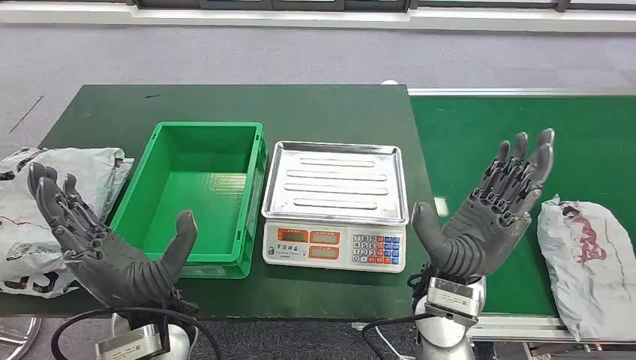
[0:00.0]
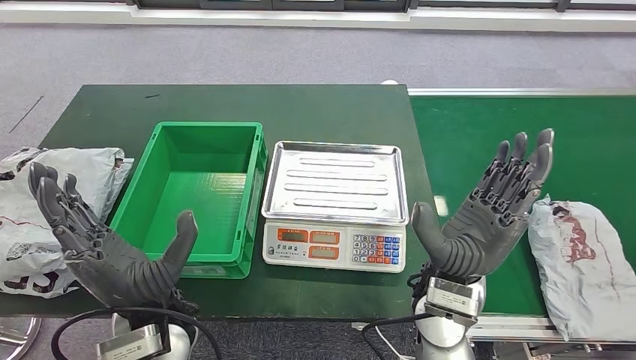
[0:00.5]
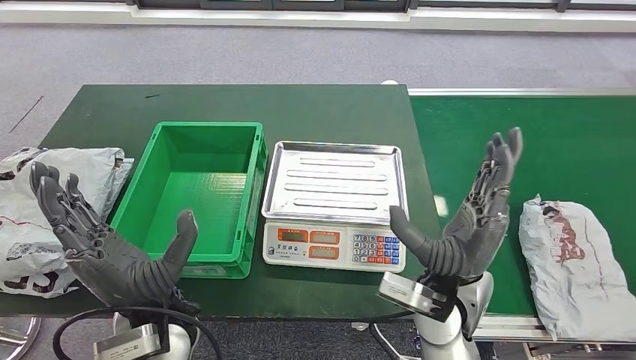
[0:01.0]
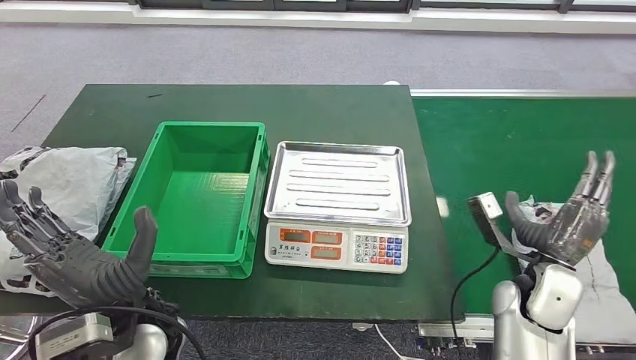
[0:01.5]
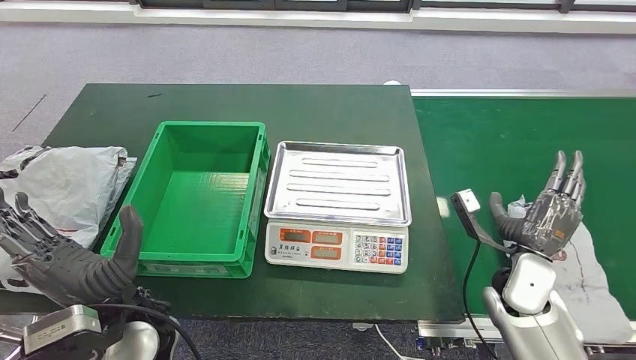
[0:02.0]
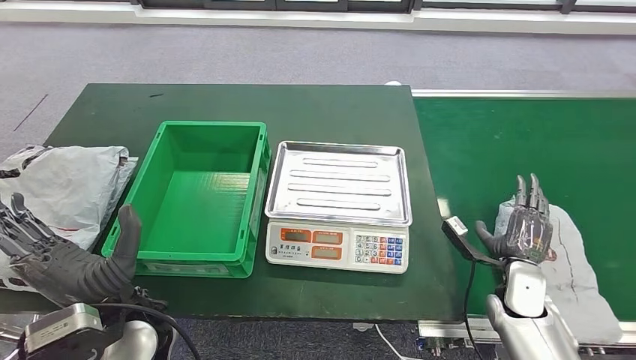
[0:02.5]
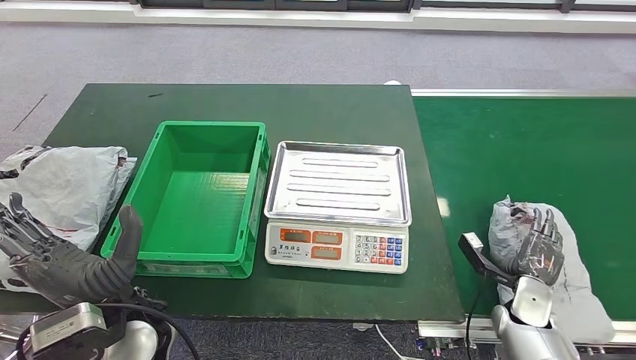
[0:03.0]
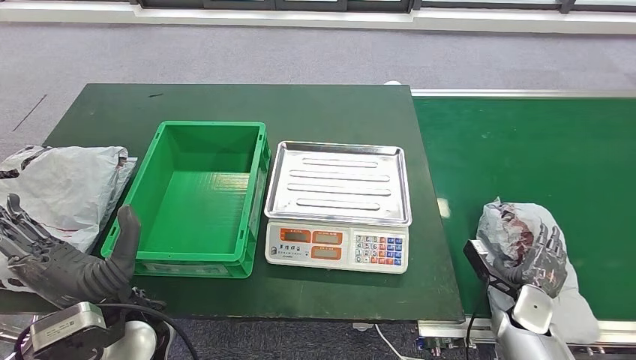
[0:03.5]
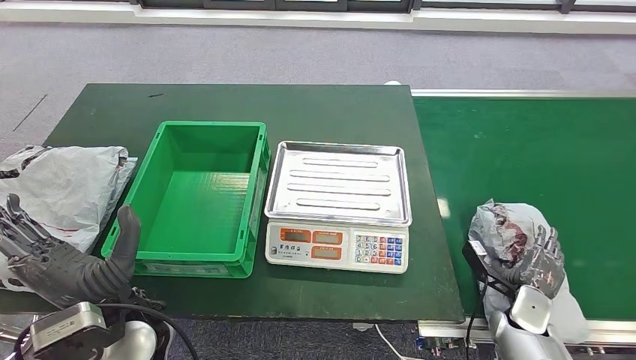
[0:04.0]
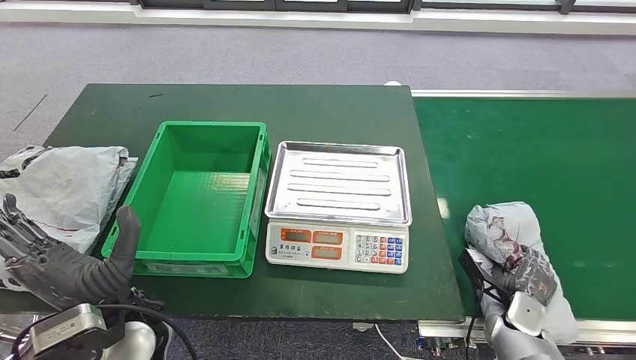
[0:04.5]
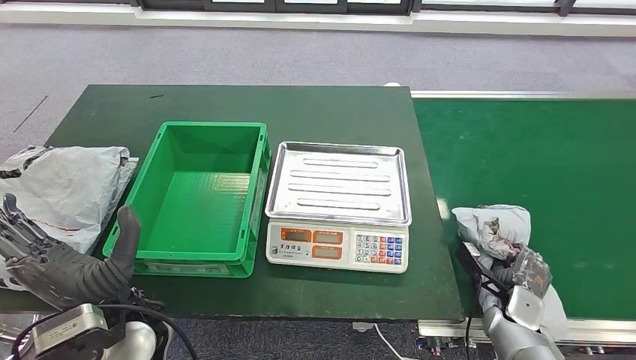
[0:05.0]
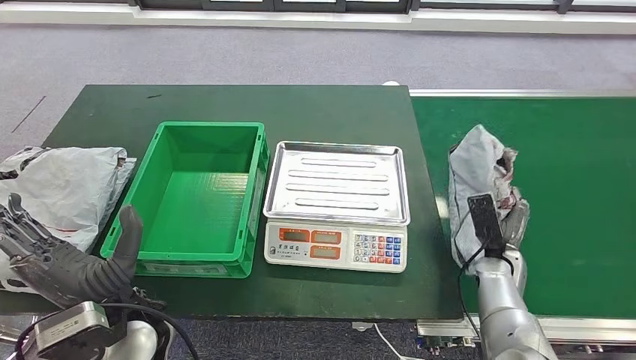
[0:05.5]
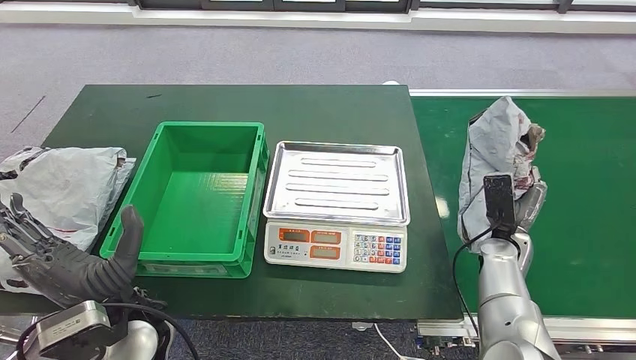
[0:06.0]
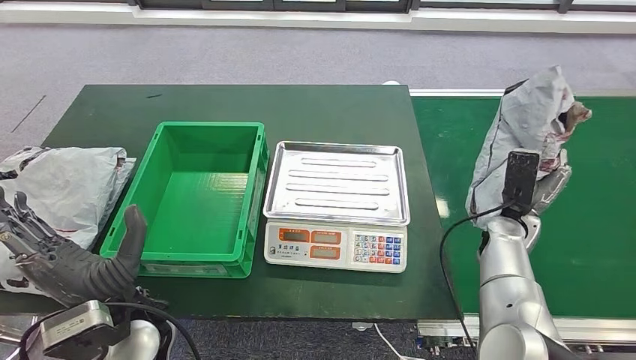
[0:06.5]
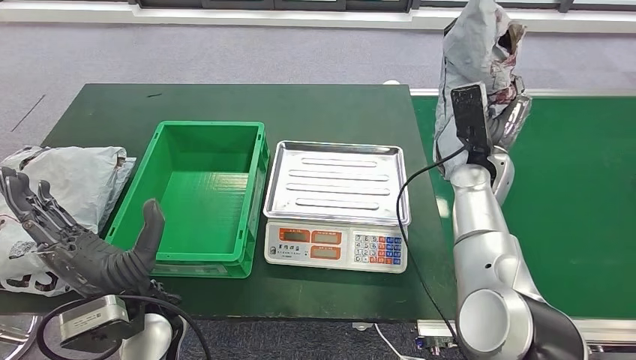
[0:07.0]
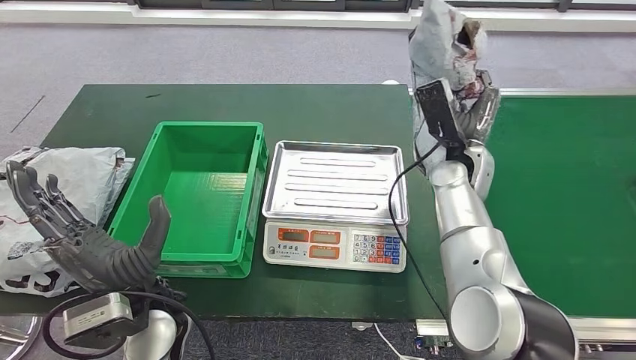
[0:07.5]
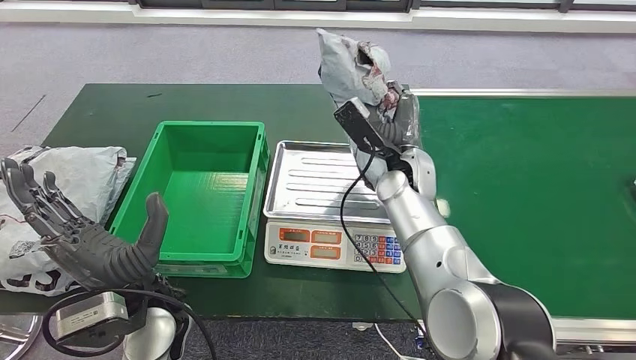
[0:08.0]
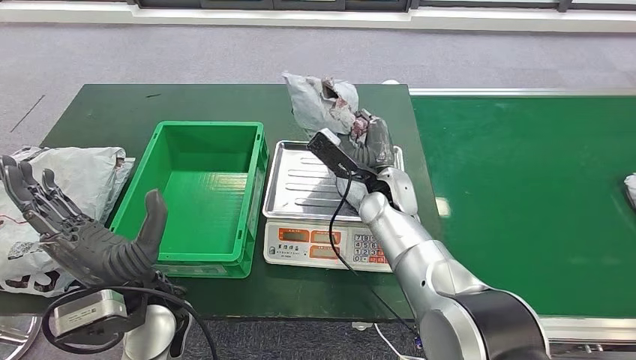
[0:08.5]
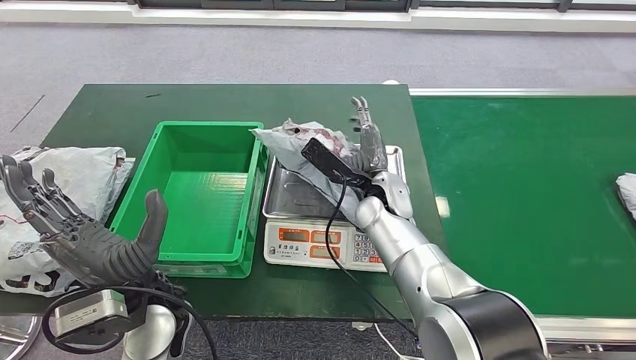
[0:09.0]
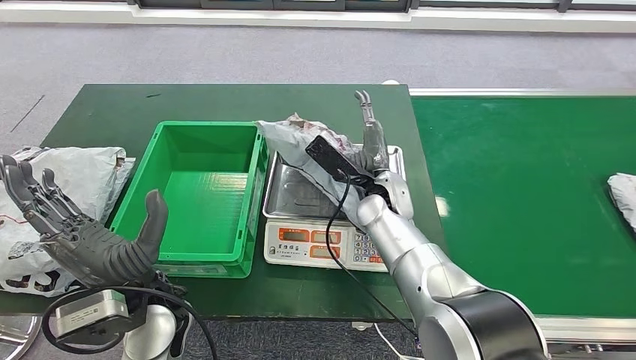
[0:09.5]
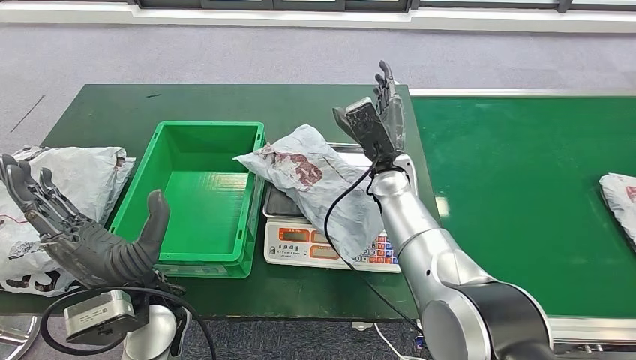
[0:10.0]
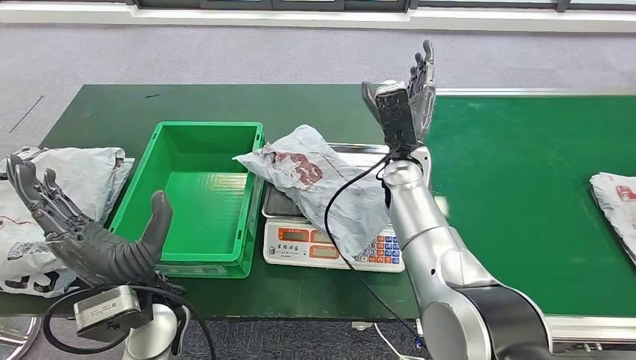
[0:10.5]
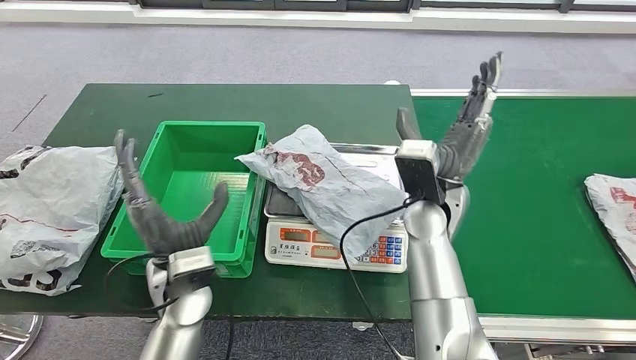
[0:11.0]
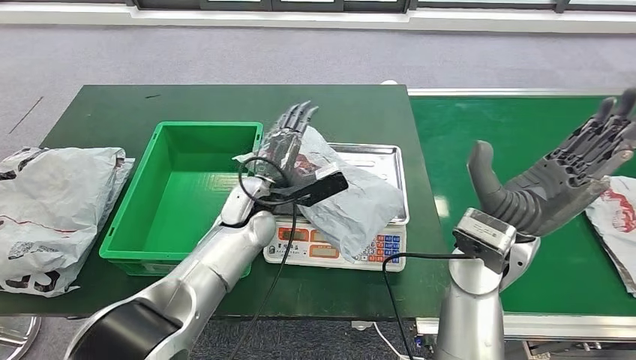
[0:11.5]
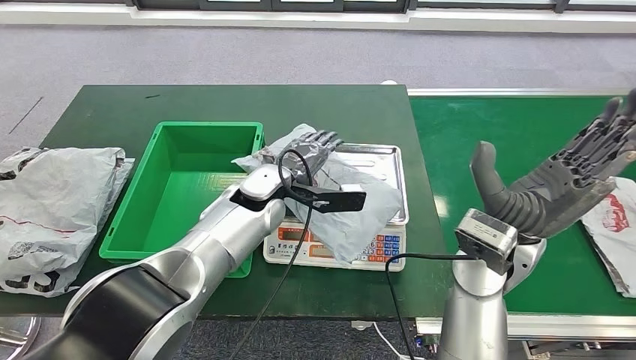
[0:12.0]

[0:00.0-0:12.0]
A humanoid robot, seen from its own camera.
Step, 0:00.0 to 0:07.0: Take the parcel off the conveyor belt.
Step, 0:07.5 to 0:10.5: Place the parcel onto the inbound machine.
0:02.0 to 0:04.0: The right hand heads downward and to the right, covering some 15 cm.
0:04.0 to 0:06.0: The right hand moves forward and upward, approximately 15 cm.

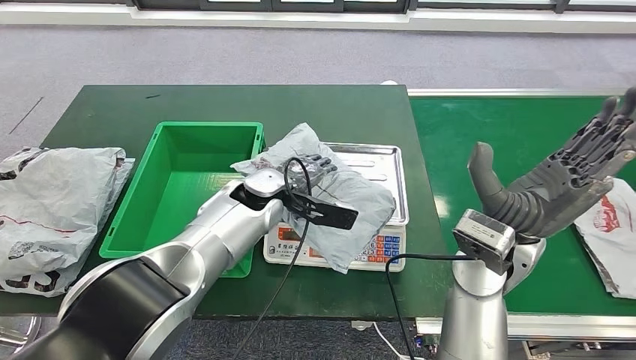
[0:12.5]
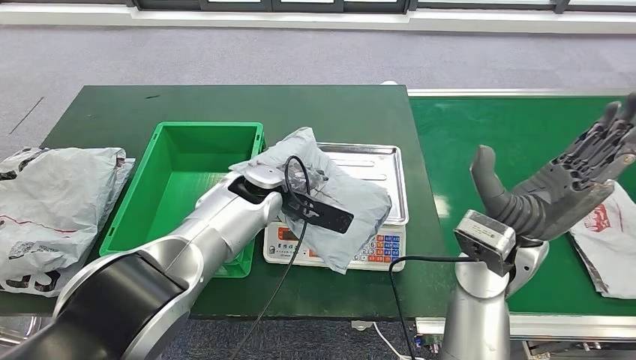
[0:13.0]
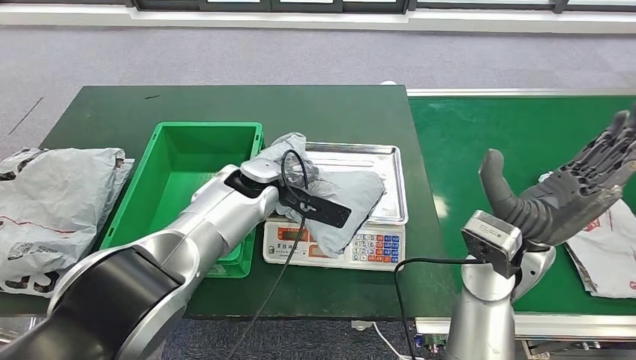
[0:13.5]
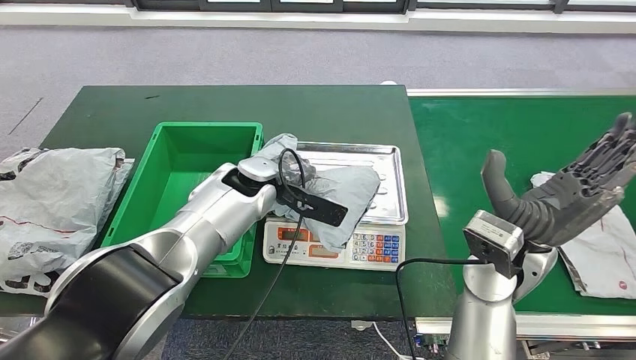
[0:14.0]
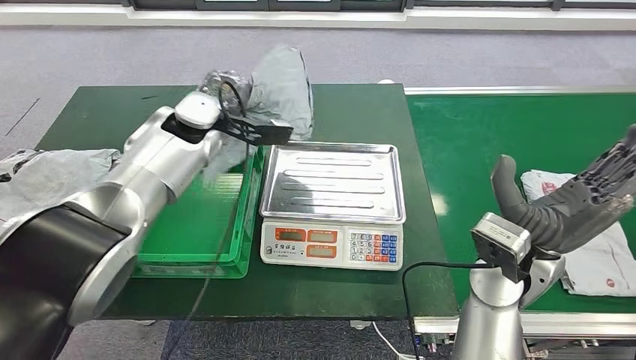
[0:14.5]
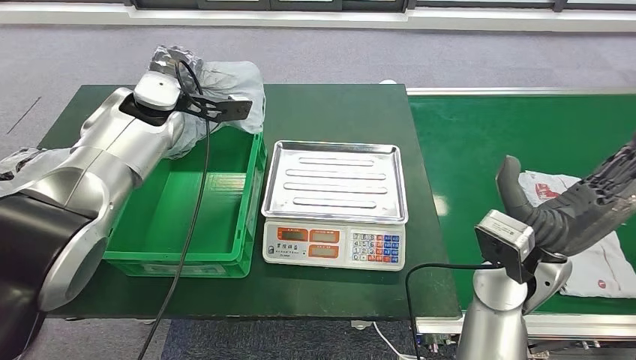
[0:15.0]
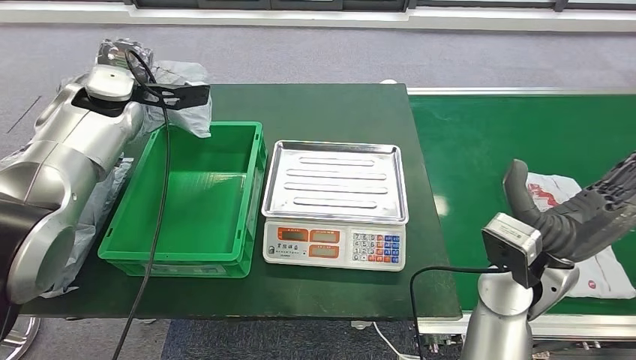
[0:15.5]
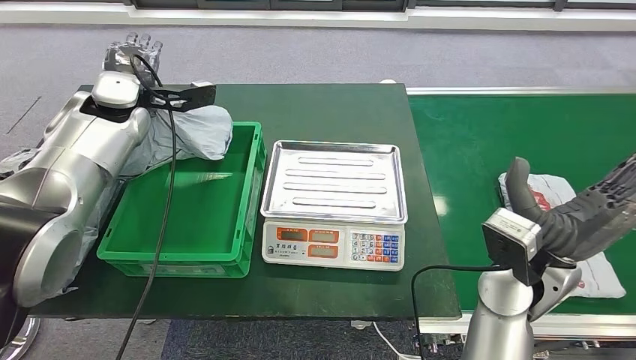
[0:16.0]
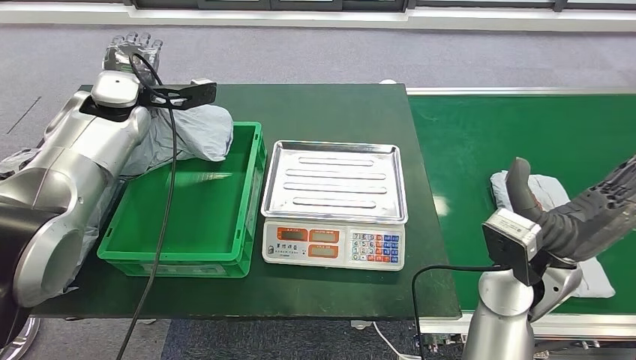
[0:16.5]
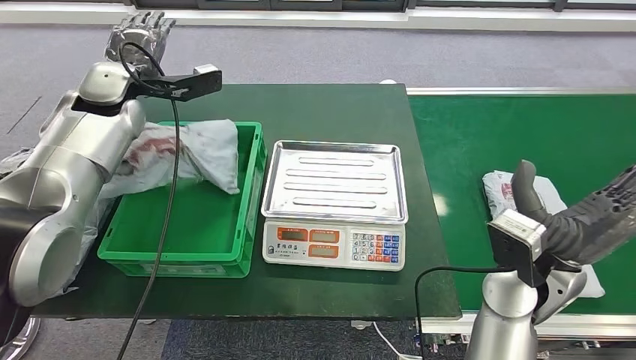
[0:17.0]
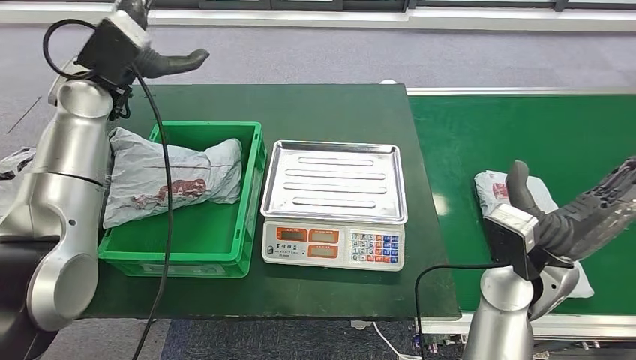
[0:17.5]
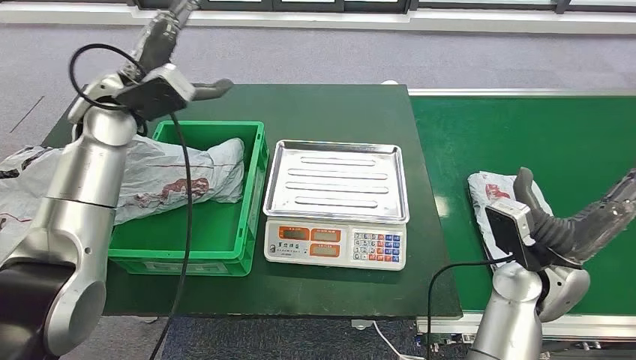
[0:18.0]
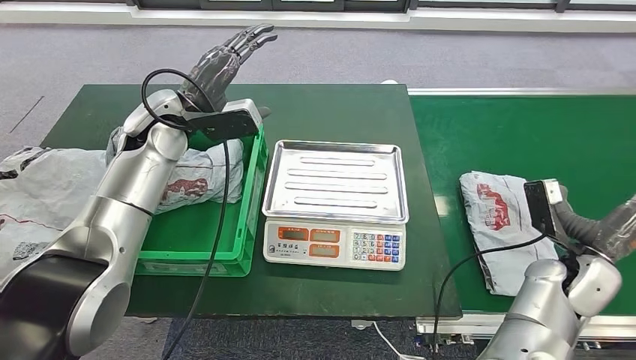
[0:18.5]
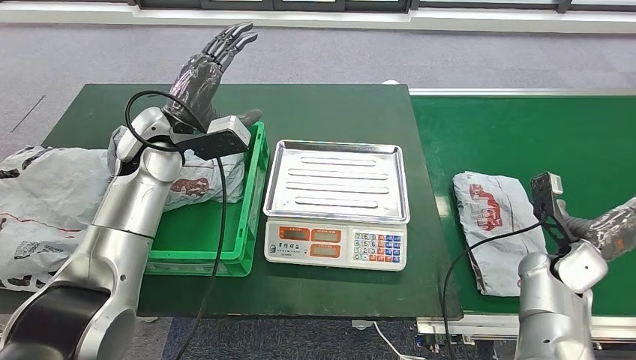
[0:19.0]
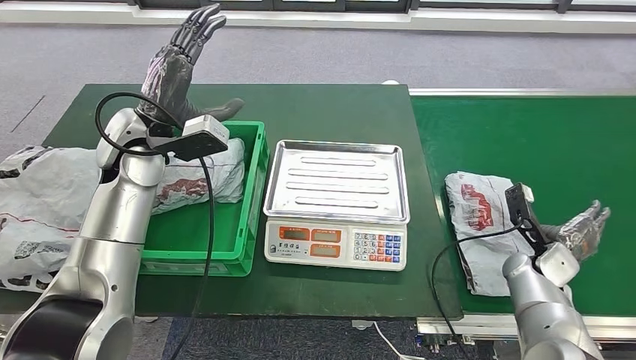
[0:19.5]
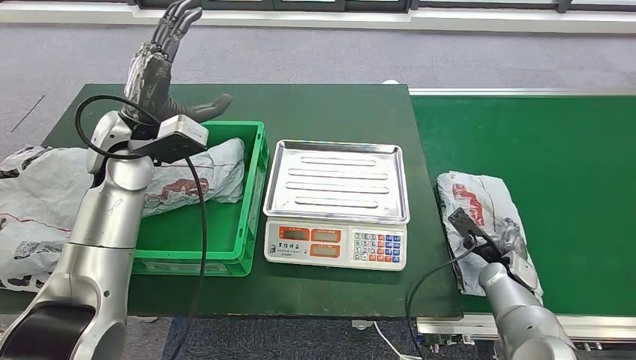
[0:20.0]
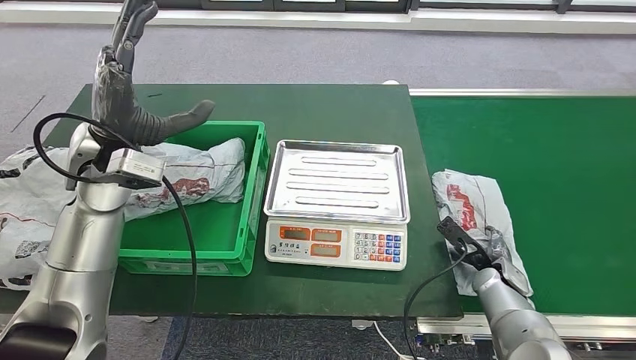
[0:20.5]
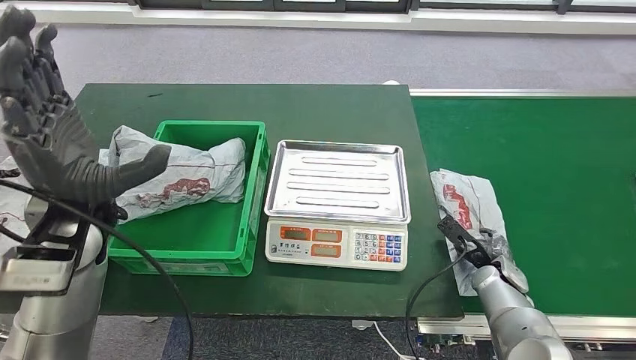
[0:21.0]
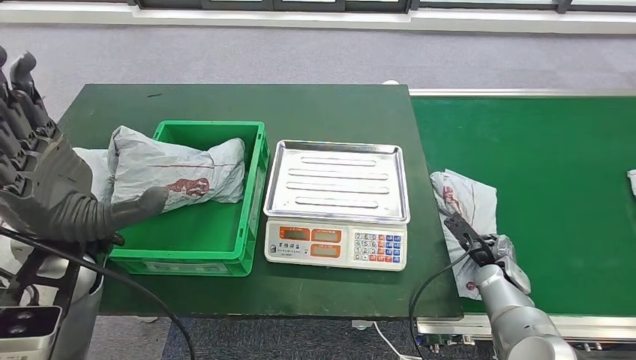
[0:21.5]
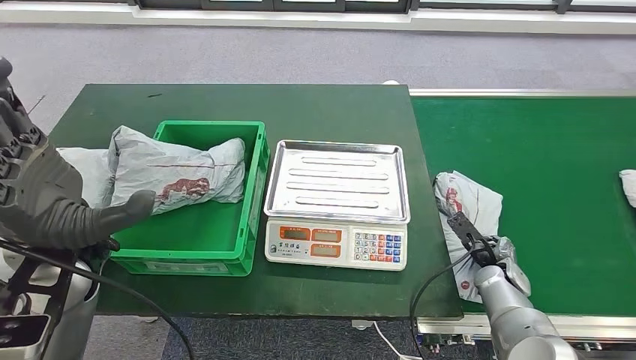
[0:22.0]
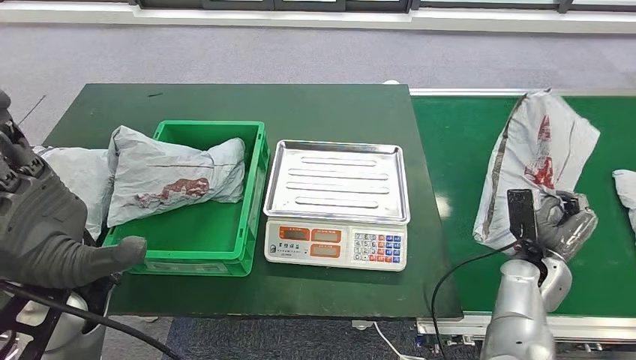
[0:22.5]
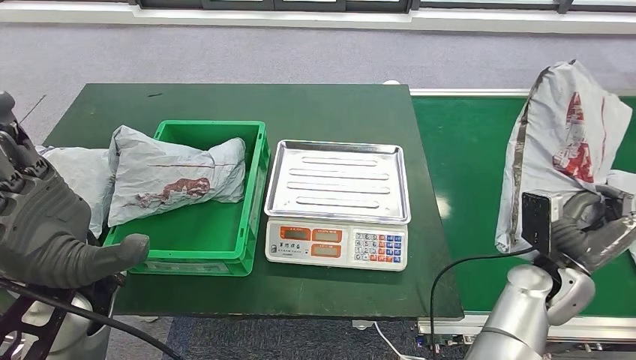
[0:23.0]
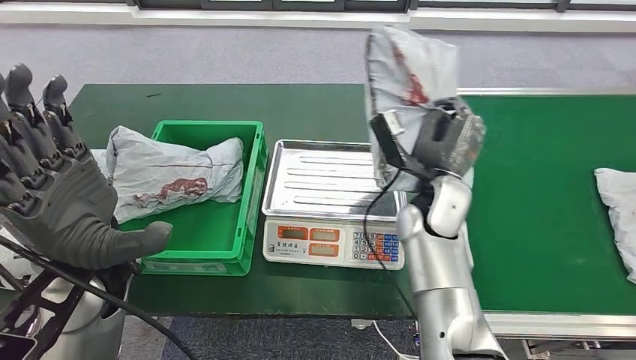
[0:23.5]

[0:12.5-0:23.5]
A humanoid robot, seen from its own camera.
Step, 0:12.5 to 0:14.5: Pick up the parcel from the inbound machine.
Step, 0:15.0 to 0:17.0: Put the parcel inside the courier box.
Step, 0:18.0 to 0:23.5: Pick up the parcel from the conveyor belt.
